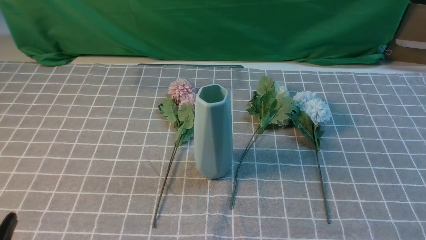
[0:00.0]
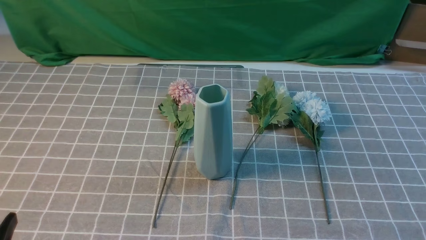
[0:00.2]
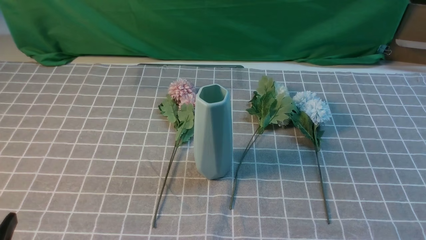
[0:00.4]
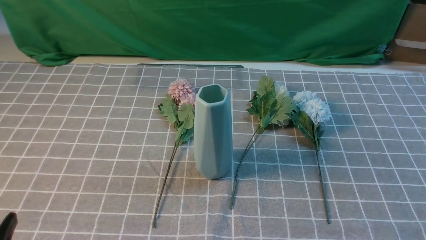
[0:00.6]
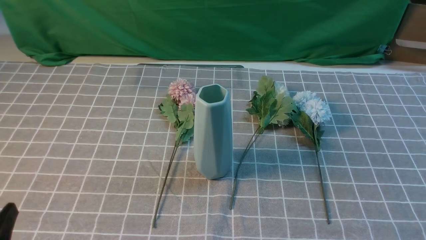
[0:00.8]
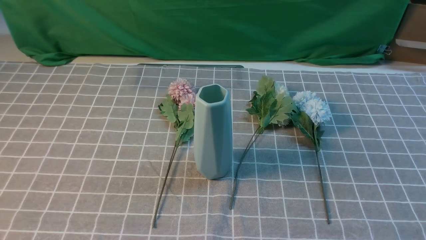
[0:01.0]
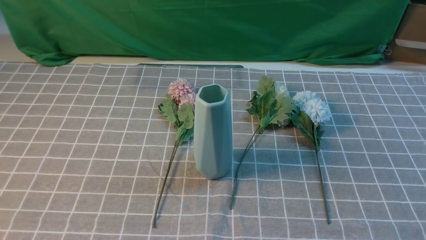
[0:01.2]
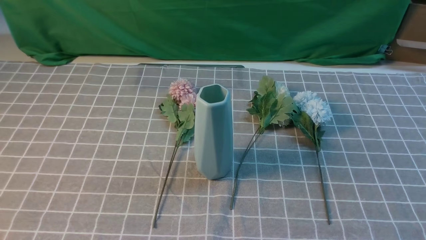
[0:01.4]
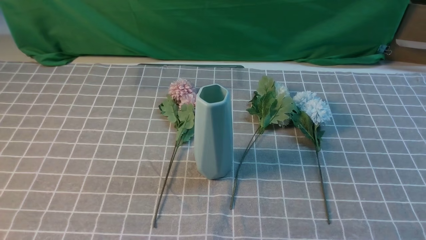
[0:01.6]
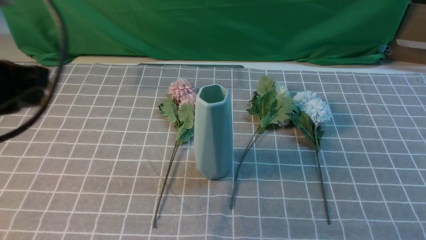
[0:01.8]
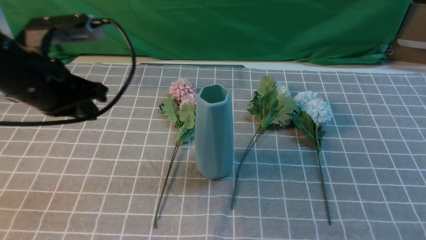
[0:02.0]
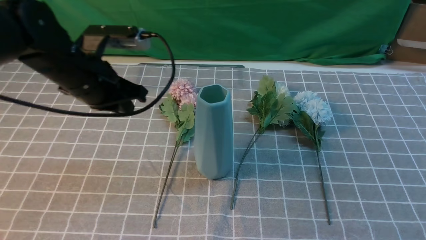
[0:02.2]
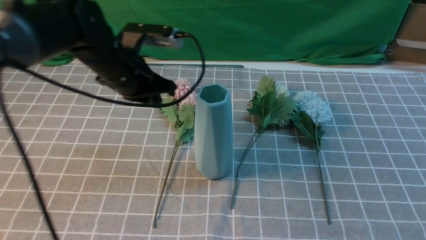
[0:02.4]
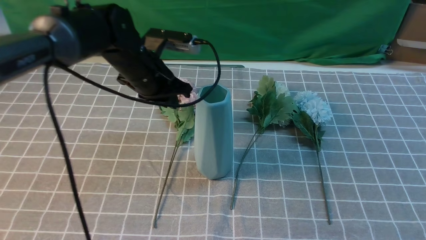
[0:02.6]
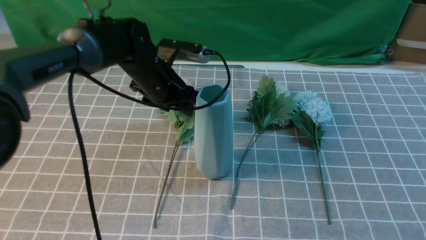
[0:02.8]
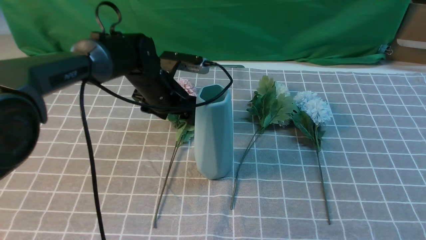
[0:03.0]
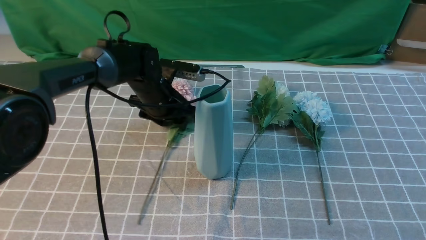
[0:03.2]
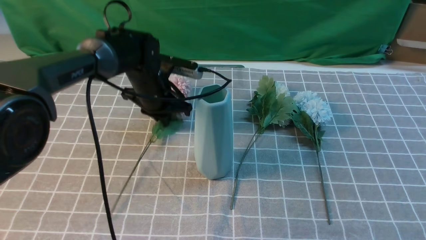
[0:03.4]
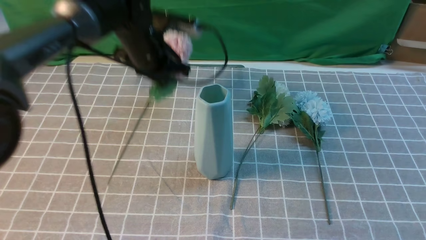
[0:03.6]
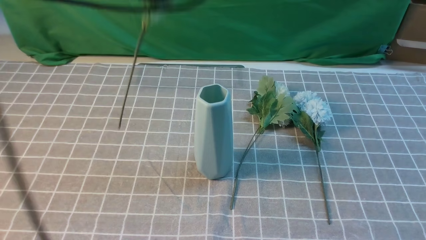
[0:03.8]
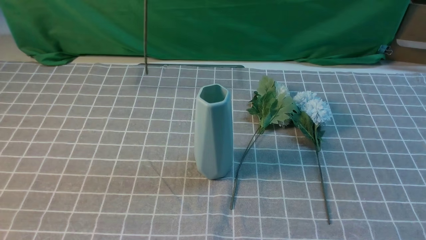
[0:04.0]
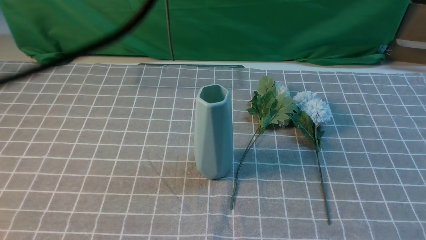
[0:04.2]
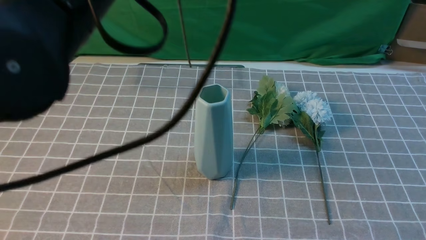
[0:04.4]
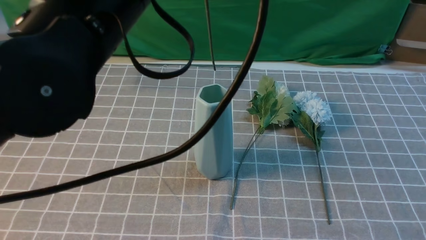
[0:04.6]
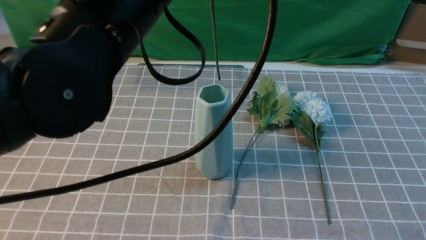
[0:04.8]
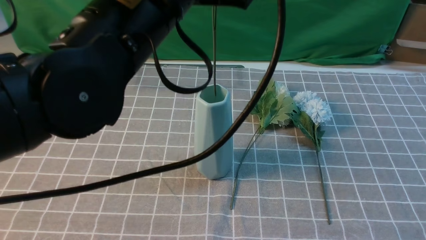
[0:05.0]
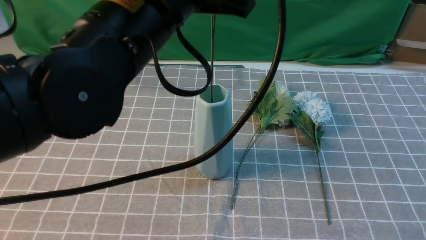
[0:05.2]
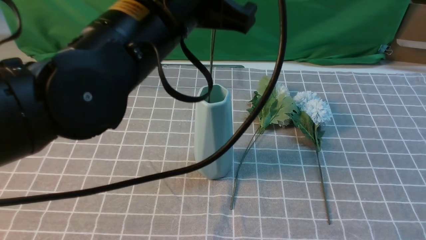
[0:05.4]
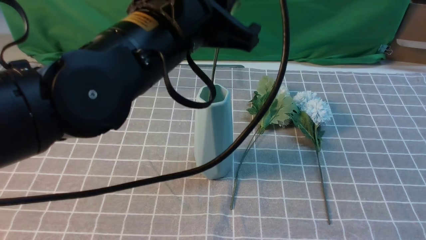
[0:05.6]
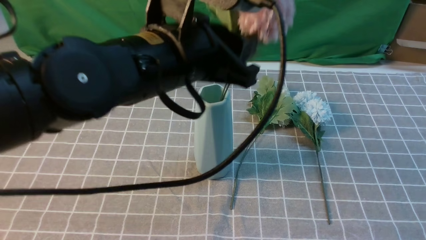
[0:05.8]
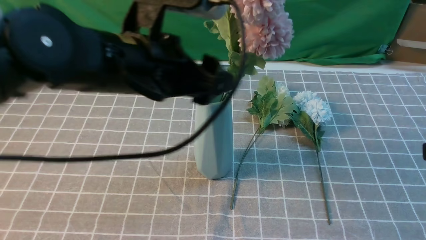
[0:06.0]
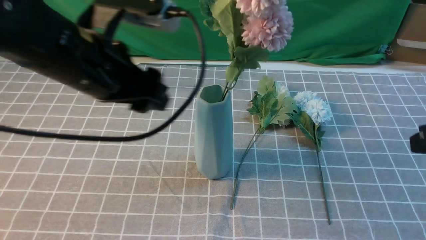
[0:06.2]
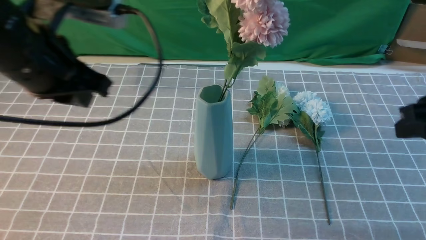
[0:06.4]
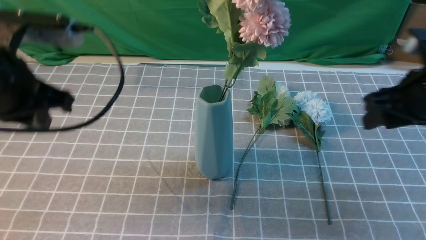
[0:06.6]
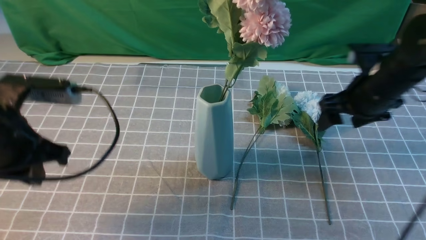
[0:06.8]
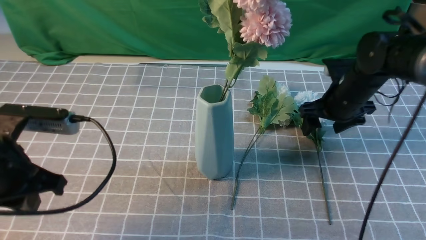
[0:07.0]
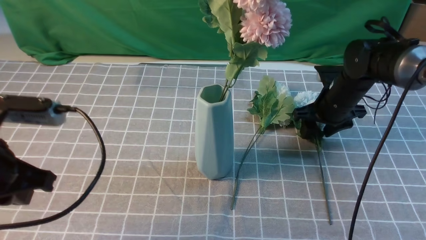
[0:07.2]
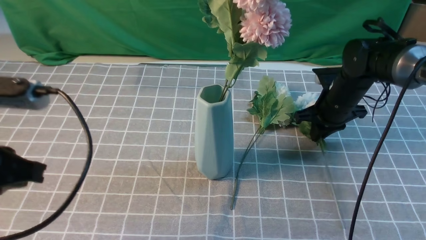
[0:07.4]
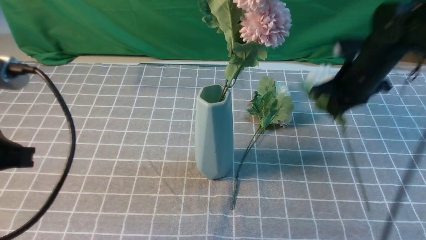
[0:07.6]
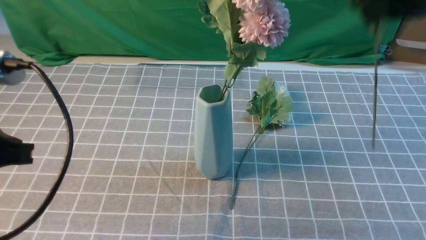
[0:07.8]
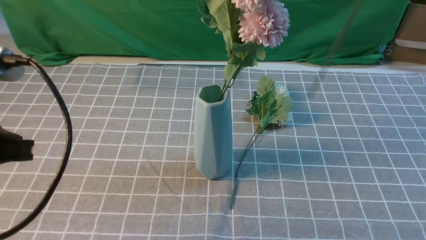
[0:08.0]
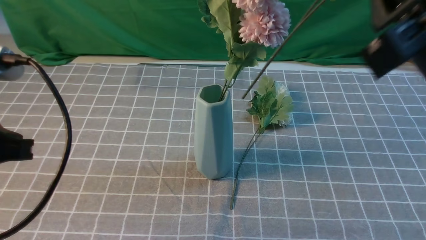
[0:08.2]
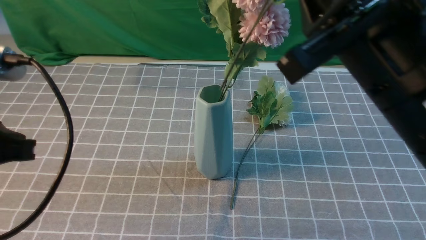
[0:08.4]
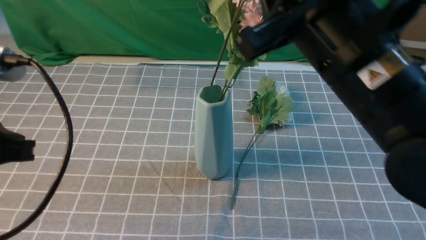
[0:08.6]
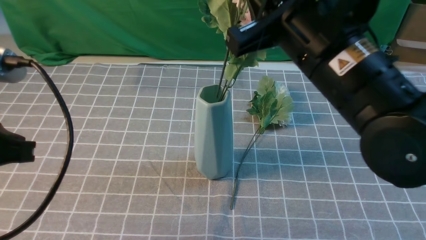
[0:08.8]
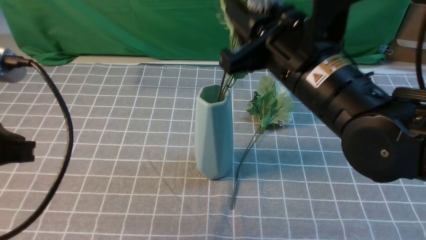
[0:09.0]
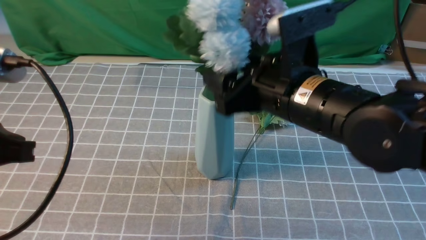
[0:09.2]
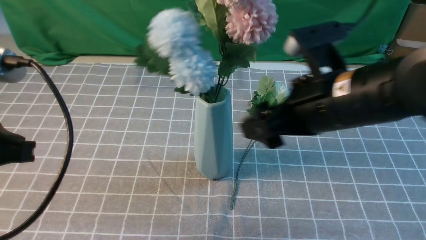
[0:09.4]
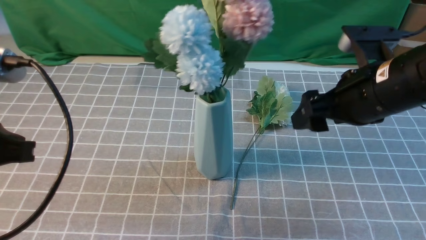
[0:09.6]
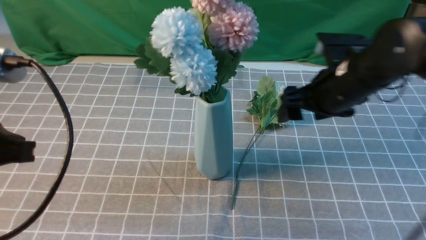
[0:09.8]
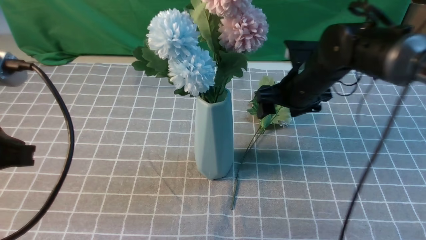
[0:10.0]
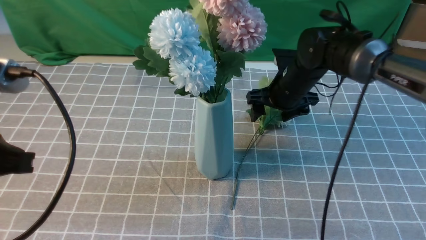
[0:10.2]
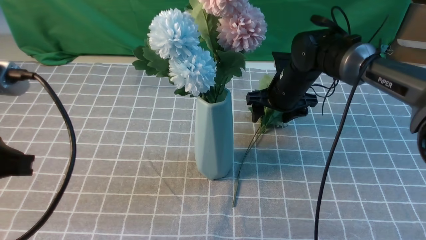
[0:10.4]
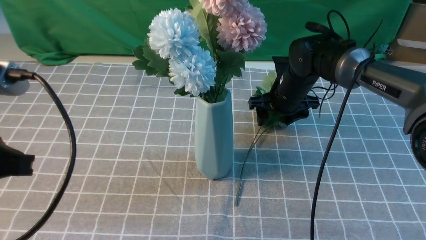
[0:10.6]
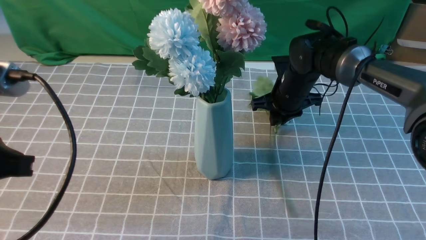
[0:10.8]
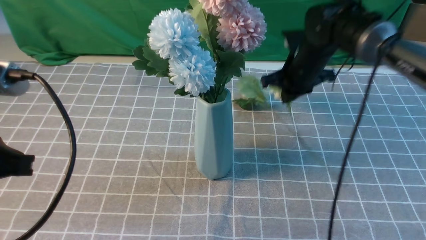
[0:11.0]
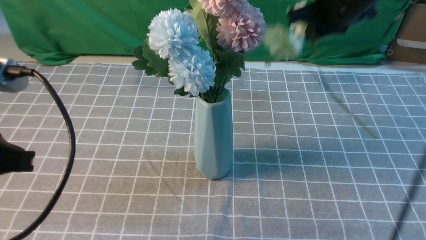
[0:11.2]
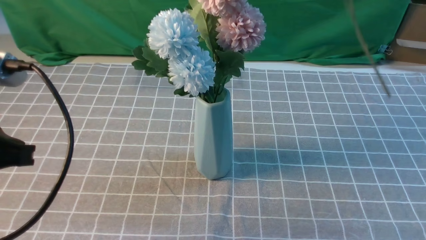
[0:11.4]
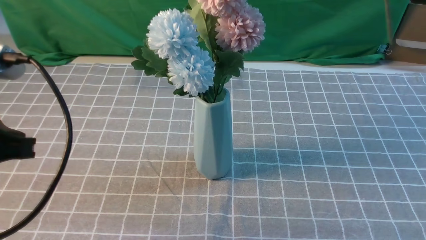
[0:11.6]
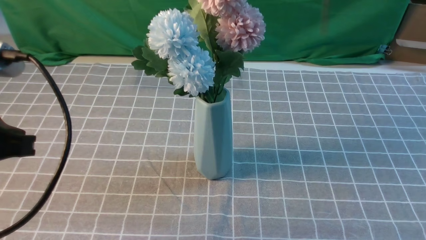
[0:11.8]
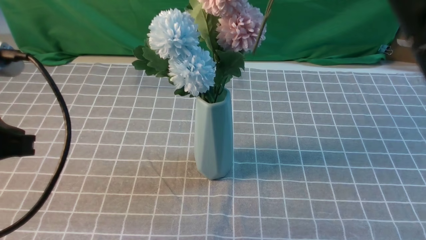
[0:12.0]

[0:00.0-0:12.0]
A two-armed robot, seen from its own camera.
Task of the whole recording: insert the flowers into the vase on the table with the grey tablecloth.
Step, 0:00.0 to 0:03.2: use the left arm to grab a bunch of fresh flowers.
Step, 0:03.4 to 0:06.0: use the left arm to insert the flowers into the vase.
Step, 0:06.2 to 0:07.2: use the right arm to grab a bunch of fresh flowers.
Step, 0:07.6 to 0:09.2: use the right arm to insert the flowers into the vase.
Step, 0:09.4 to 0:10.8: use the right arm to grab a bunch of fresh flowers.
0:01.6 to 0:03.0: The left gripper travels forward, downward and to the right by roughly 40 cm, and opens up. The right gripper heads upward and forward, covering about 15 cm.
0:03.0 to 0:04.4: The left gripper heads upward and backward, covering roughly 35 cm, and closes its fingers.
0:04.4 to 0:06.0: The right gripper shifts about 5 cm forward. The left gripper heads downward, covering about 10 cm, and opens up.
0:06.0 to 0:07.6: The left gripper shifts roughly 20 cm to the left and backward, and closes; the right gripper travels forward by about 20 cm, and opens, then closes once more.
0:07.6 to 0:09.0: The right gripper is displaced backward and to the left by roughly 20 cm, and opens up.
0:09.0 to 0:10.4: The right gripper is displaced forward and downward by approximately 25 cm, and opens its fingers.
0:10.4 to 0:12.0: The right gripper heads upward and backward, covering about 35 cm, and closes up.

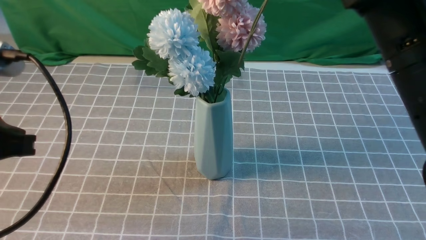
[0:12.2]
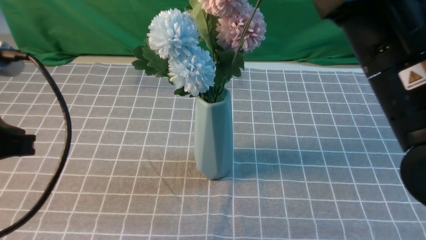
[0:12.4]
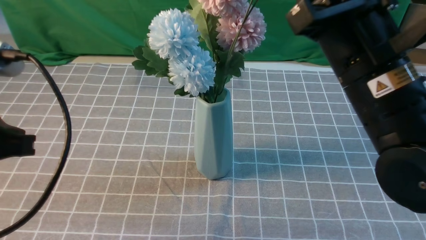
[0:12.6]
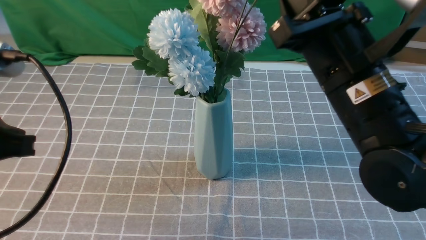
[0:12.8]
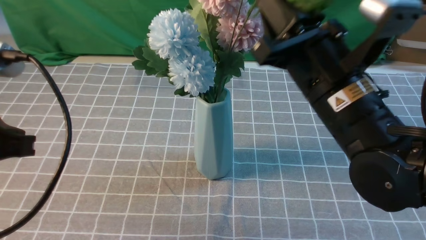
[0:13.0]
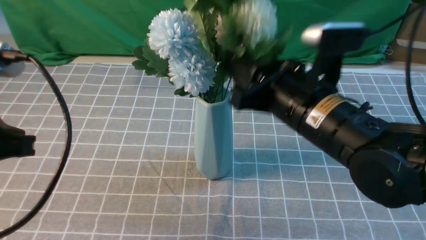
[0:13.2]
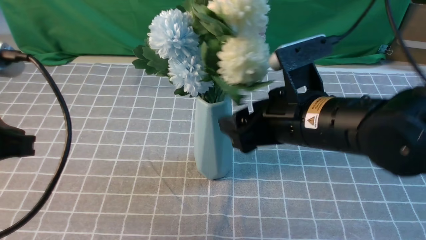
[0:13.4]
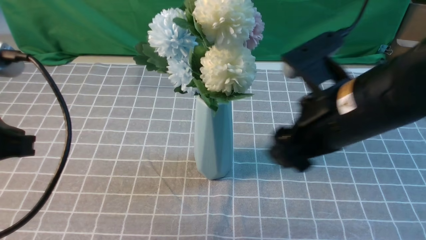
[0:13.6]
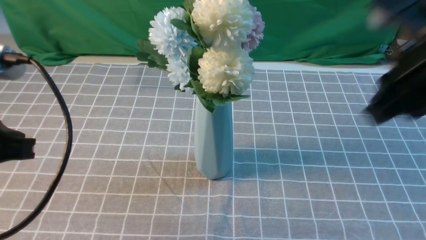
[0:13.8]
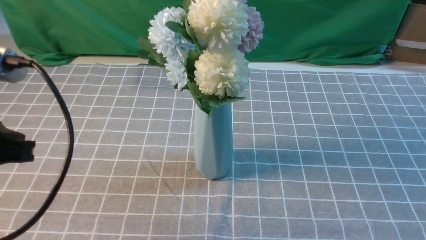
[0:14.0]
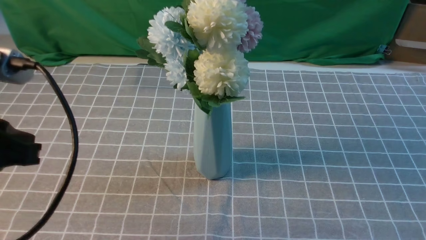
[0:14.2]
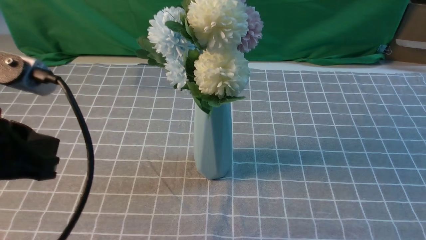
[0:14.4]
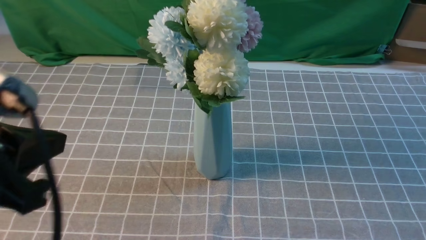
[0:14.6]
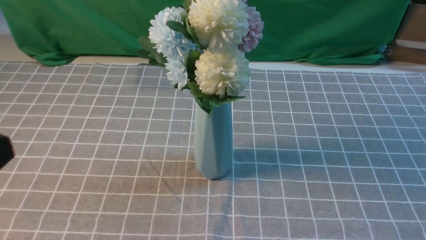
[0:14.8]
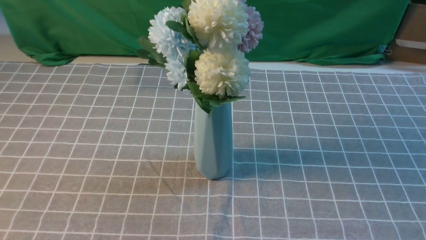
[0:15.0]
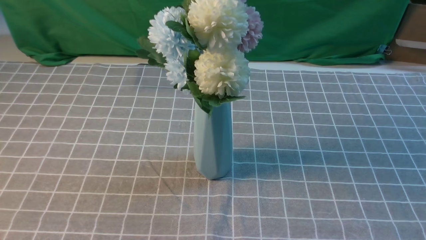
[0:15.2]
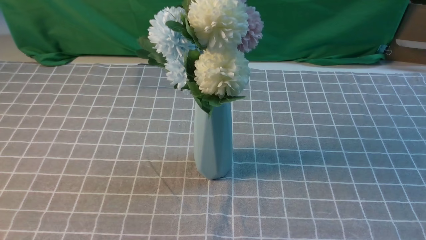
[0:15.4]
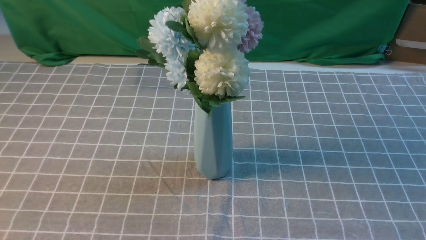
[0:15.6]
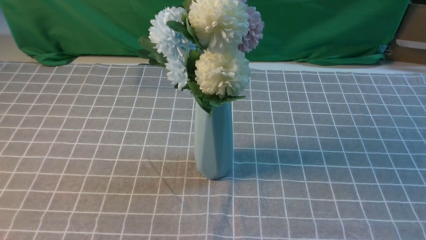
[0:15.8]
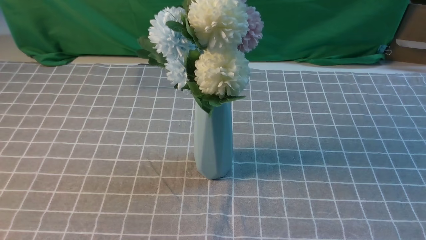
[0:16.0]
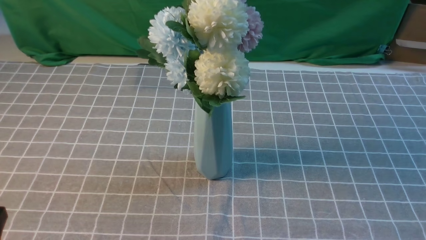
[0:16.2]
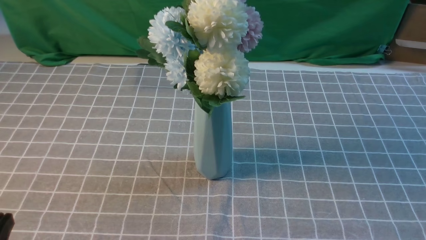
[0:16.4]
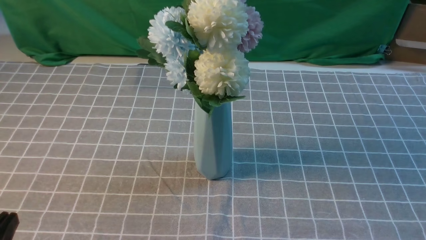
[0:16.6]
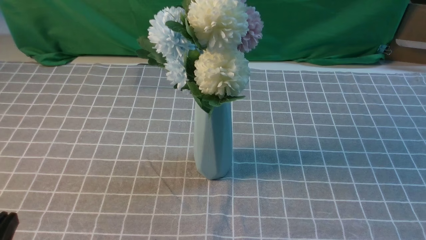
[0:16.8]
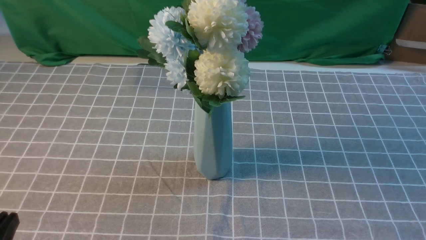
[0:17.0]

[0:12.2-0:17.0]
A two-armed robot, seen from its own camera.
Task of the whole recording: insert the flowers into the vase on the table with the grey tablecloth.
0:12.2 to 0:13.8: The right gripper travels downward and back again, about 10 cm each way, and opens, then closes again.
0:13.8 to 0:15.4: The right gripper is displaced backward, downward and to the right by roughly 25 cm, while the left gripper travels backward by some 15 cm.
